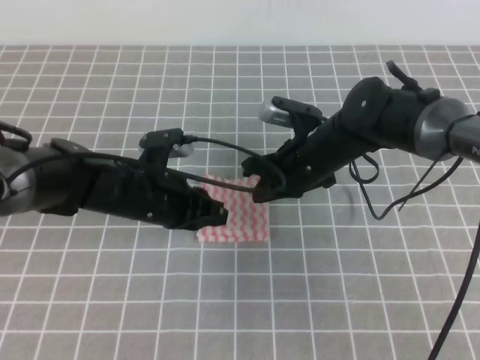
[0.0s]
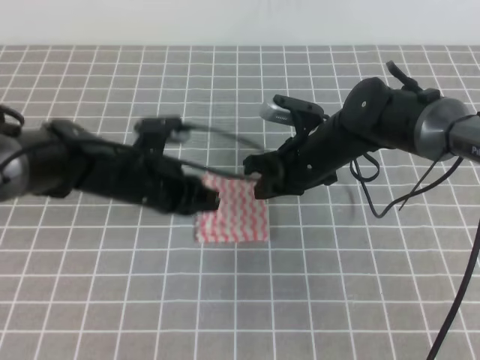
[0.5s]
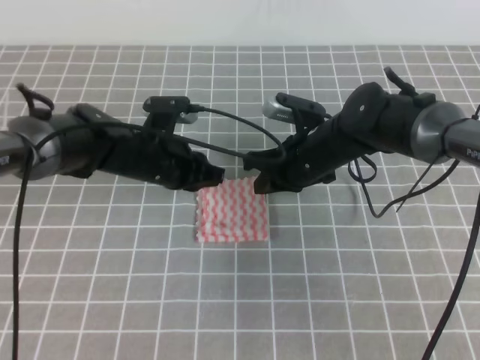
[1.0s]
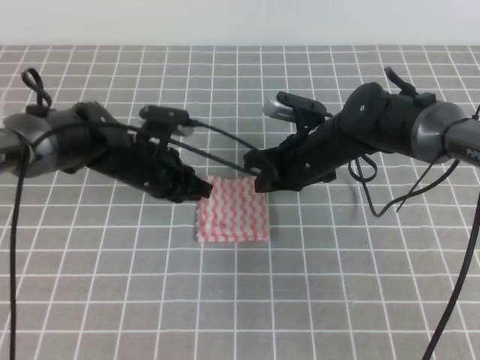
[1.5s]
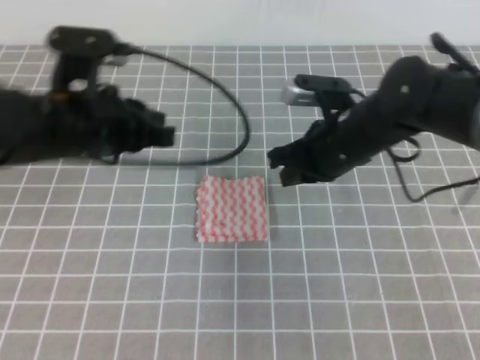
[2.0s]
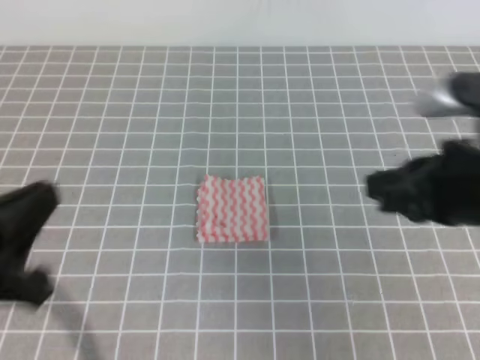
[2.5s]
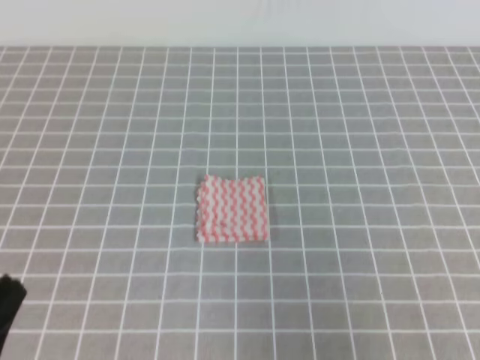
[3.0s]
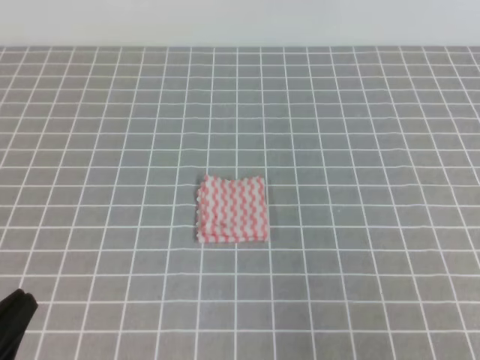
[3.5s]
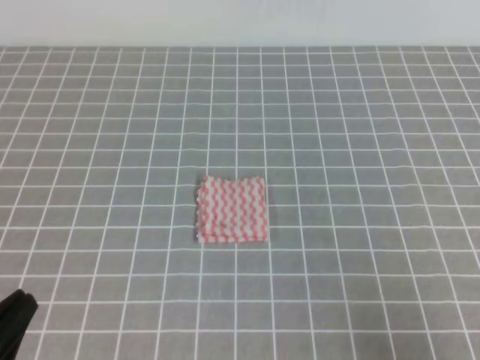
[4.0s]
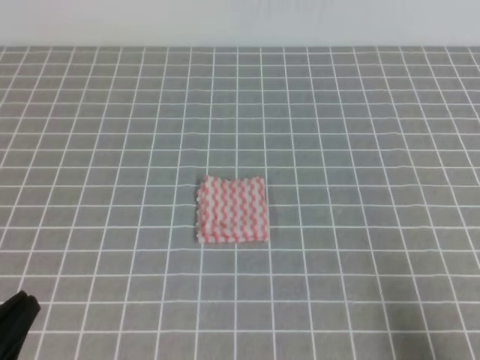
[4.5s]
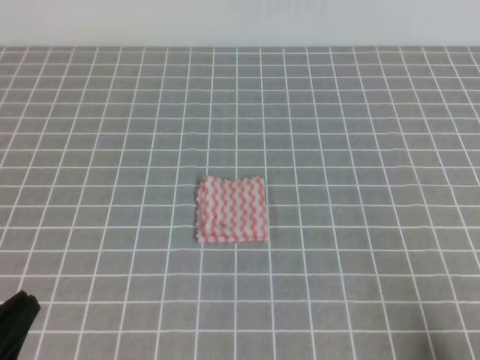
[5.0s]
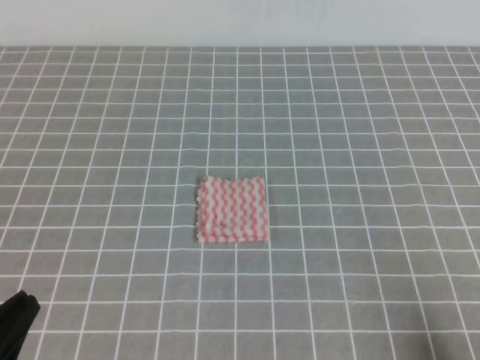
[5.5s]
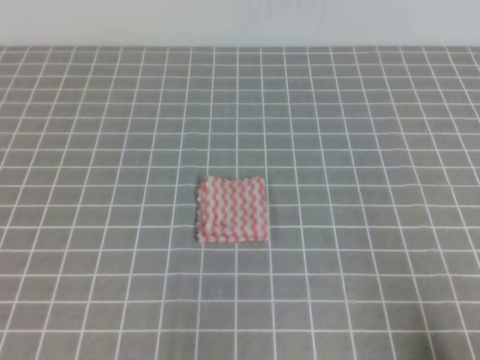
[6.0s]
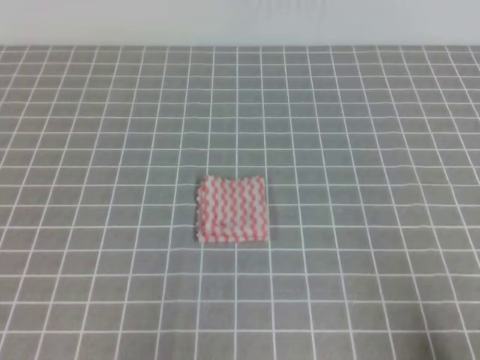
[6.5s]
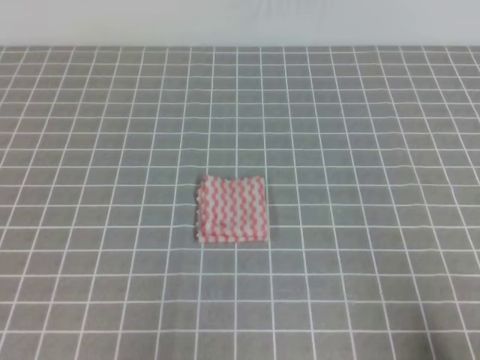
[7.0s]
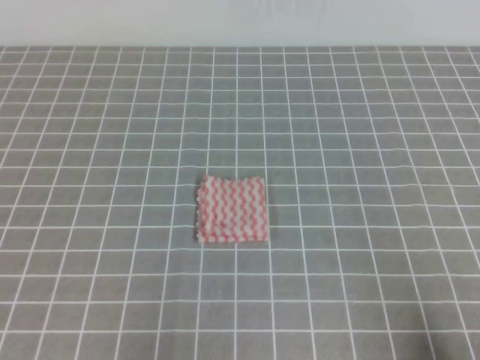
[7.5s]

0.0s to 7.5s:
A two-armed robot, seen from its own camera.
Step, 0.0s to 7.5s: Fold the towel.
0.0s to 2.0s: The left gripper travels upward by some 15 cm. Meanwhile the right gripper changes place by about 5 cm.
2.0s to 4.0s: The left gripper moves backward, about 25 cm. The right gripper heads backward and to the right, covering about 35 cm.
4.0s to 5.5s: The right gripper heads downward, covering approximately 5 cm.
5.5s to 7.5s: The left gripper moves about 5 cm.

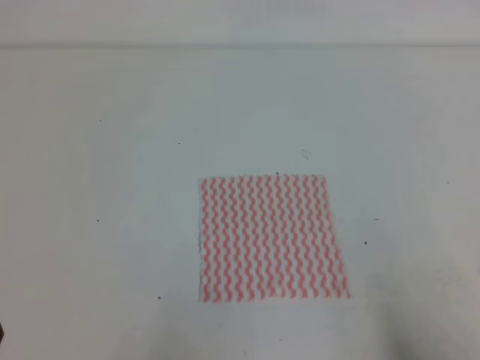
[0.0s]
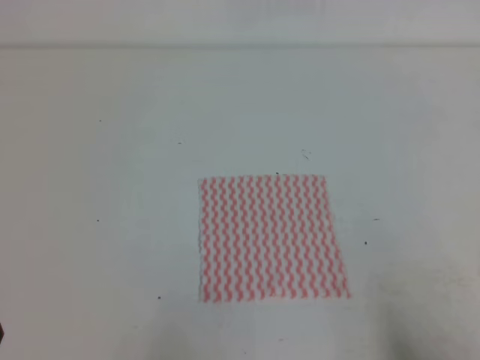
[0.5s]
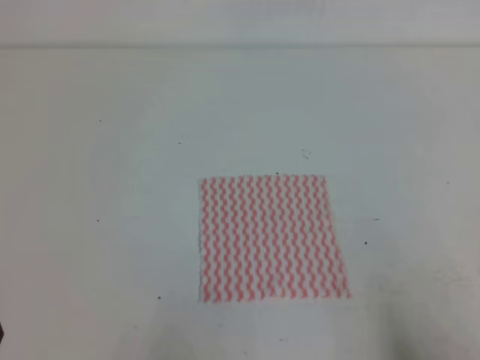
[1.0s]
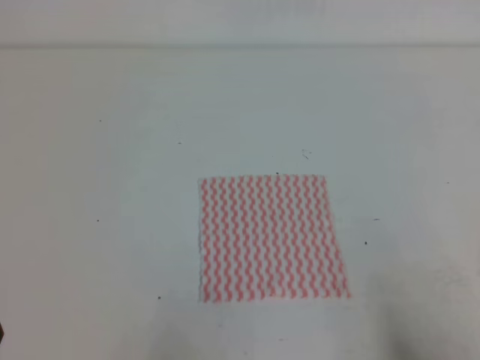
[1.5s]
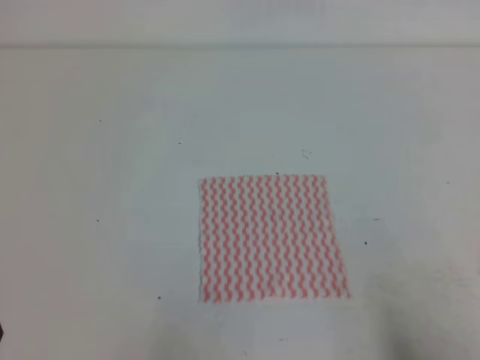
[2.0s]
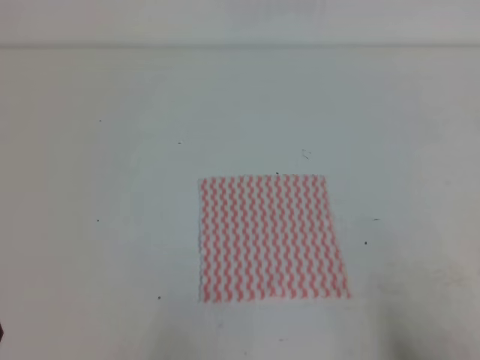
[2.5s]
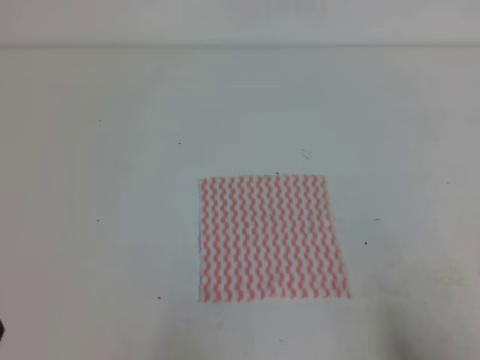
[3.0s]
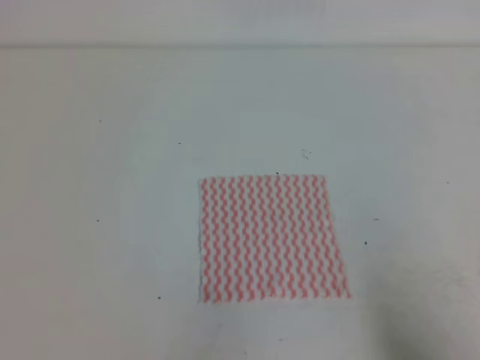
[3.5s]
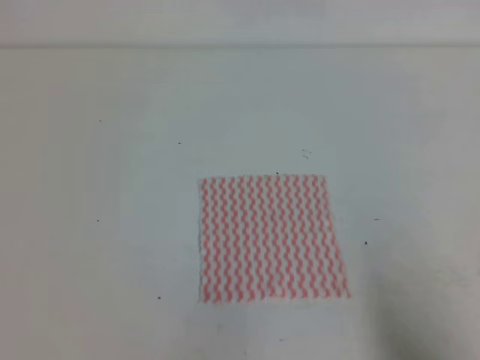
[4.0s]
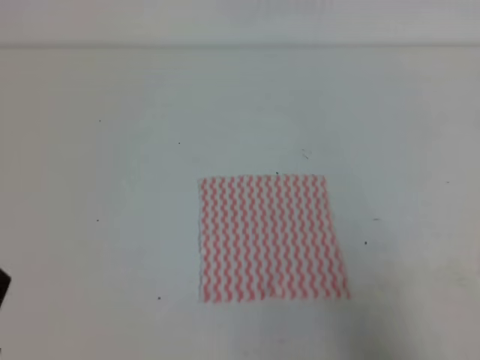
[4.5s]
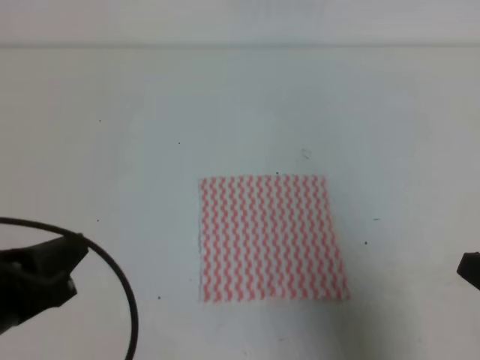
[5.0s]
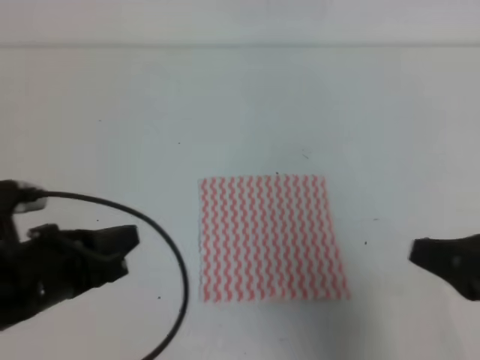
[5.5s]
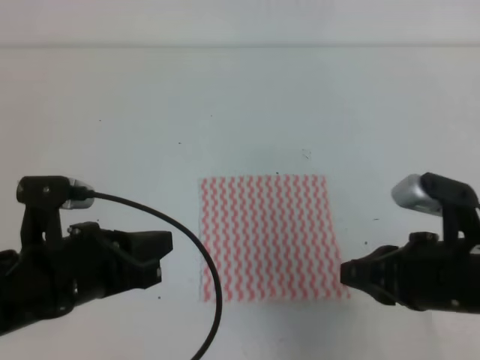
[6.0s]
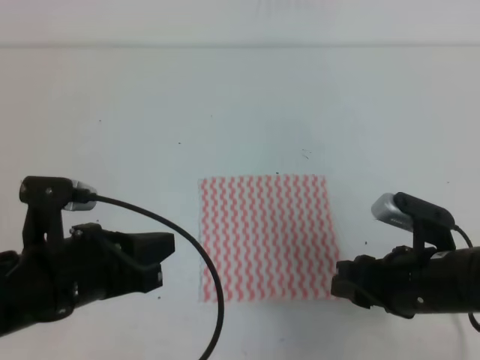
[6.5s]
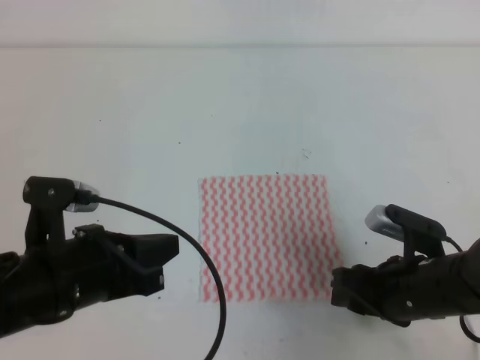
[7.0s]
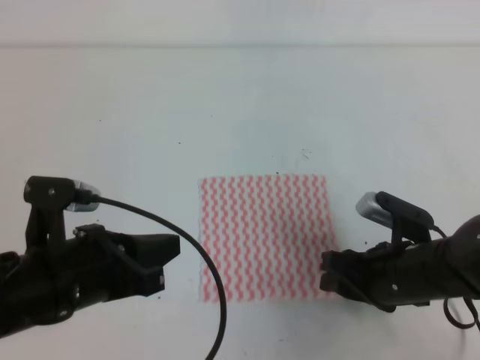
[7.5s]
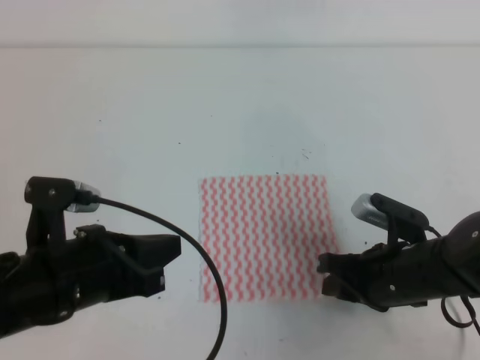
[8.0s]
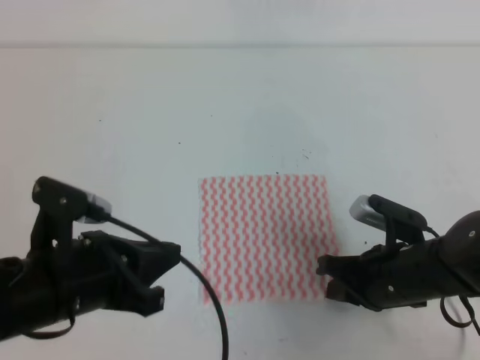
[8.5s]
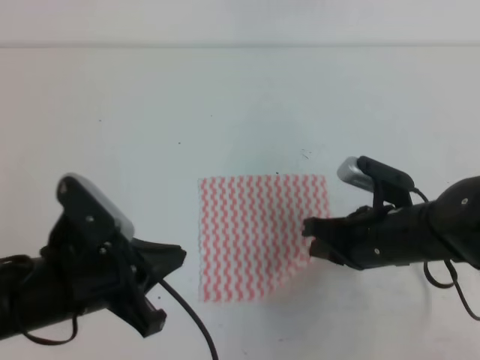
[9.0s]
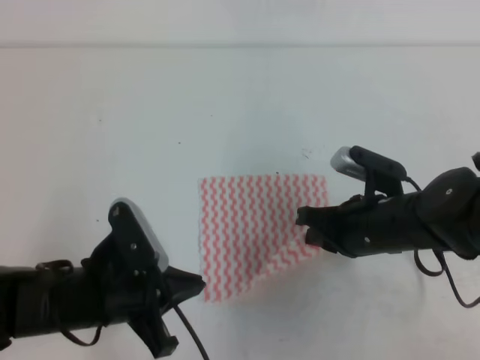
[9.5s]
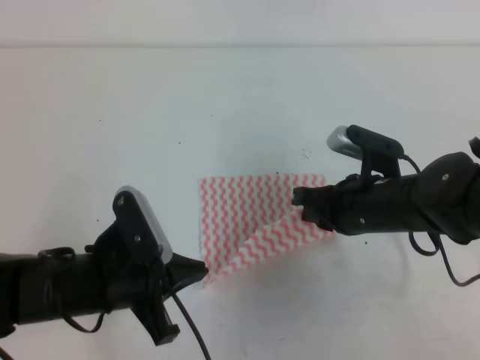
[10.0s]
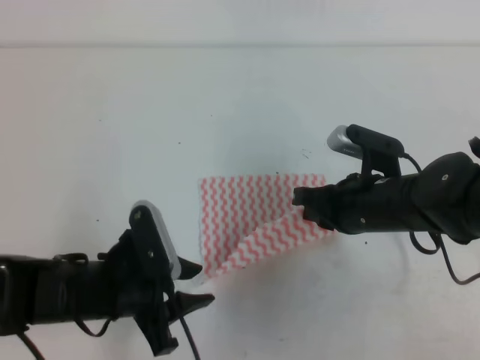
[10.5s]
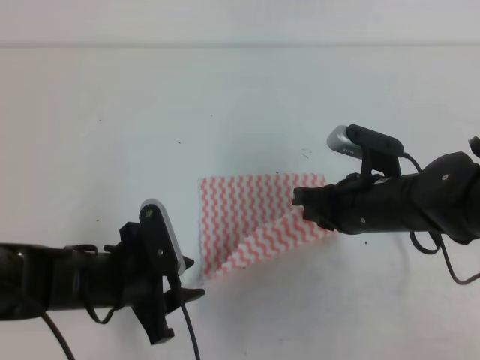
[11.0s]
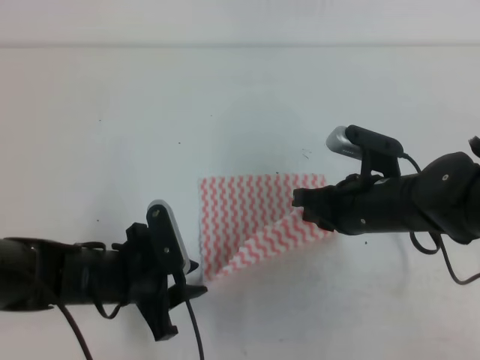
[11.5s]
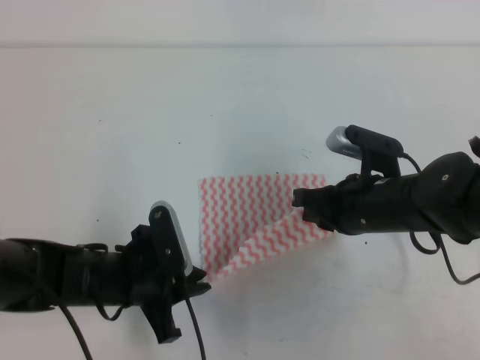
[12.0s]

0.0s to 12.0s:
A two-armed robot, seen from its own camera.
0.0s to 2.0s: Both grippers stay about where they are.
4.0s to 6.0s: The right gripper shifts roughly 15 cm forward and to the left; the left gripper moves forward and to the right, approximately 15 cm.
6.0s to 8.0s: The right gripper goes about 10 cm downward and forward, and opens its fingers.
8.0s to 10.0s: The left gripper goes approximately 5 cm downward. The right gripper travels forward by about 5 cm, and closes up.
10.0s to 12.0s: The left gripper ends up roughly 5 cm from where it was, and opens and closes again.

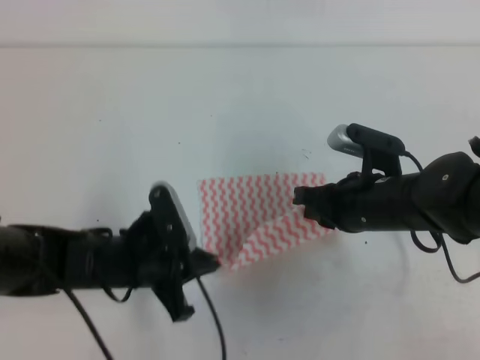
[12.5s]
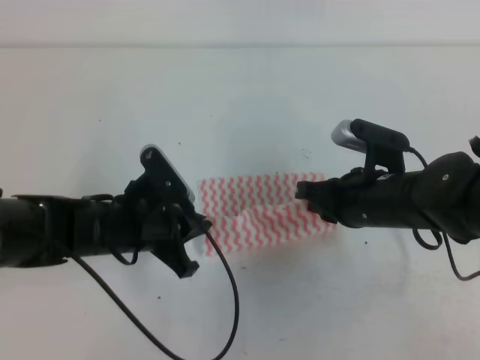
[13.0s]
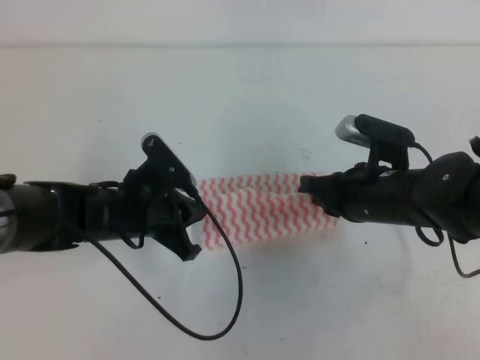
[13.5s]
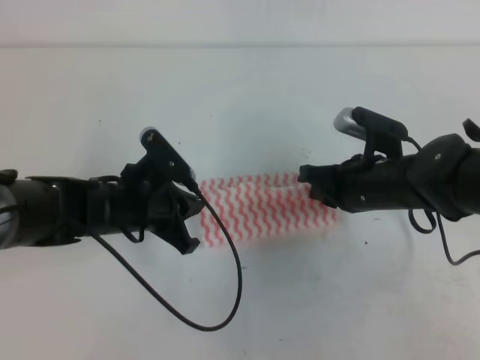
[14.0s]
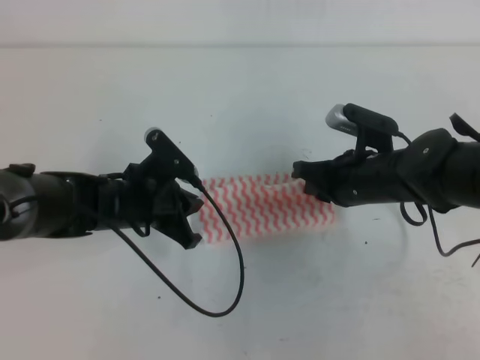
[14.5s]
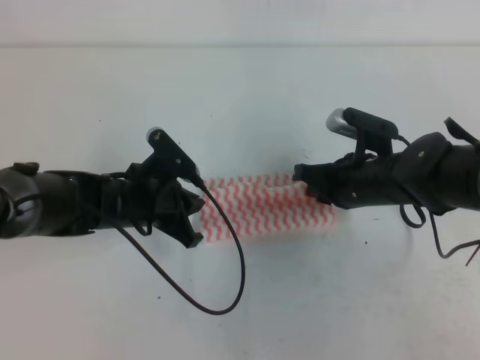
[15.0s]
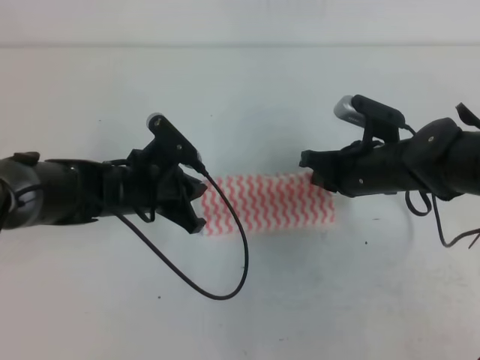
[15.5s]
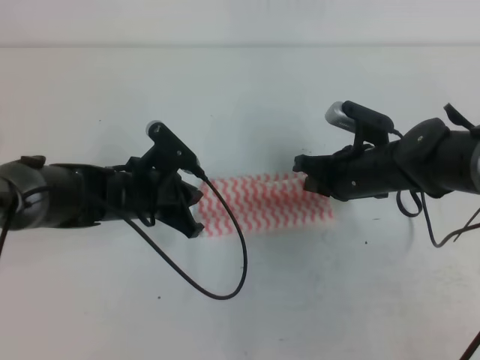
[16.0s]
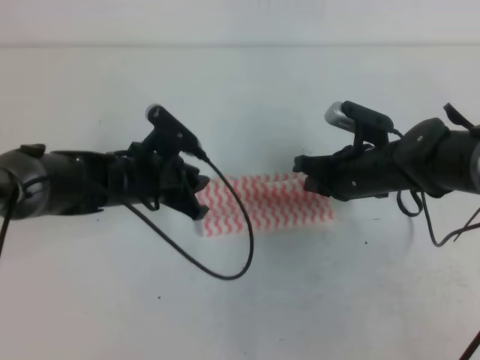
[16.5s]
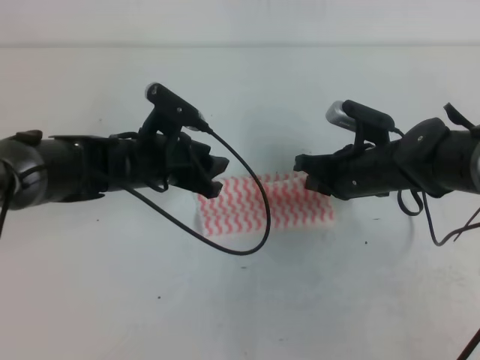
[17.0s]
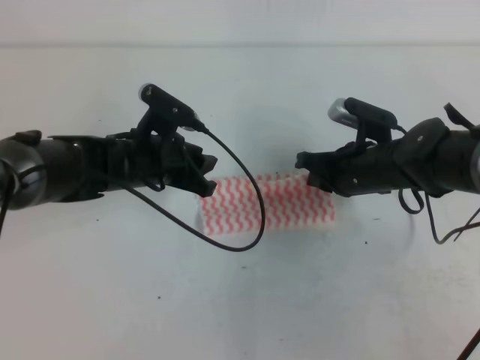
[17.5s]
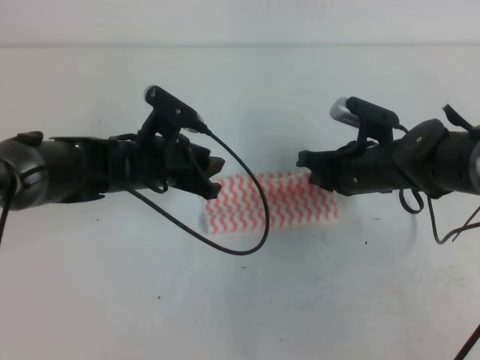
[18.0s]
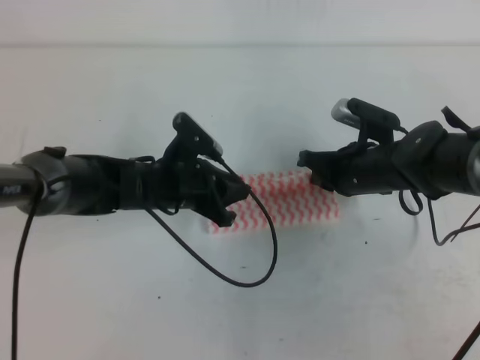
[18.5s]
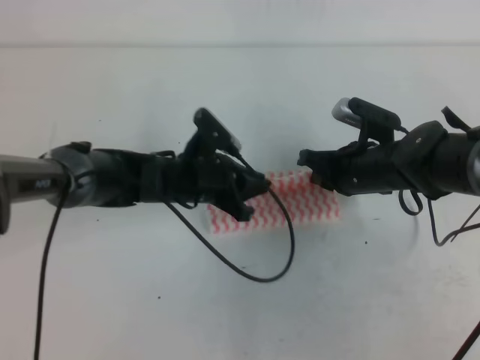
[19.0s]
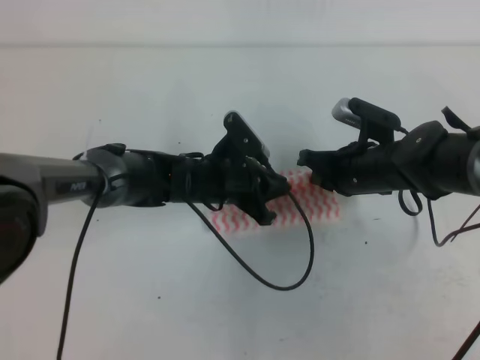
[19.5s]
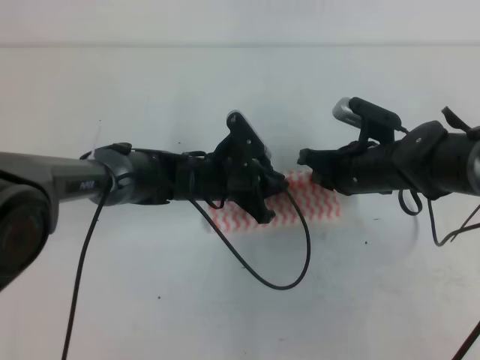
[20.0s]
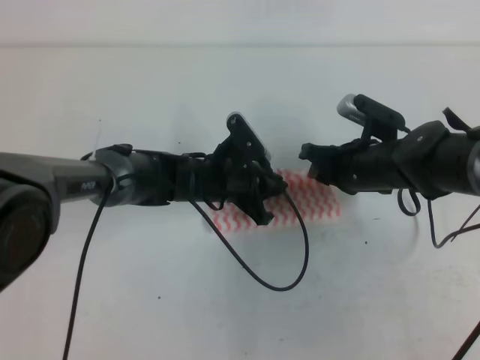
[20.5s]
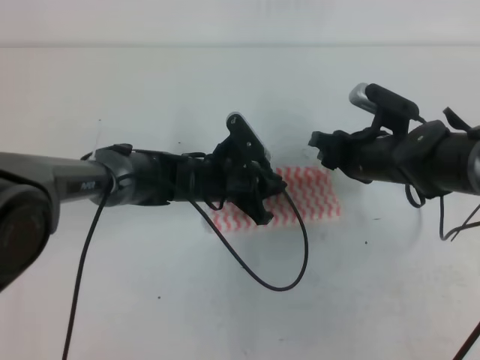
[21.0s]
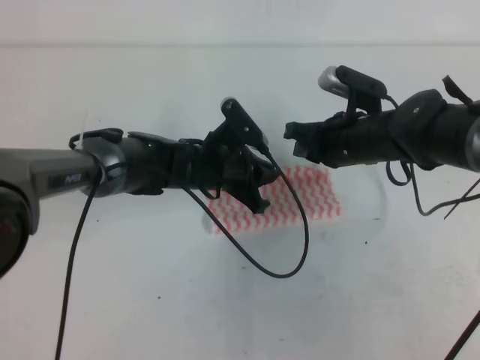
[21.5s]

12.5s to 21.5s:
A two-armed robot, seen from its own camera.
12.5s to 14.5s: The left gripper travels forward by some 10 cm.
14.5s to 17.0s: The left gripper shifts by some 5 cm, and opens its fingers.
17.0s to 19.5s: The left gripper is displaced to the right and downward by approximately 10 cm, and closes up.
19.5s to 21.5s: The right gripper opens, then closes again.
